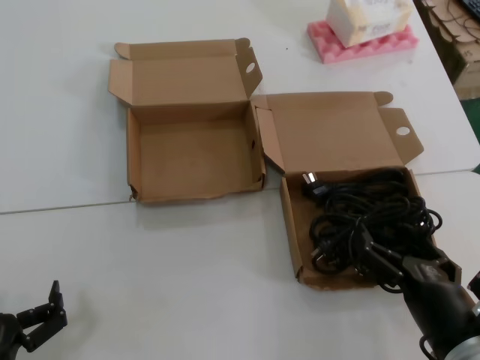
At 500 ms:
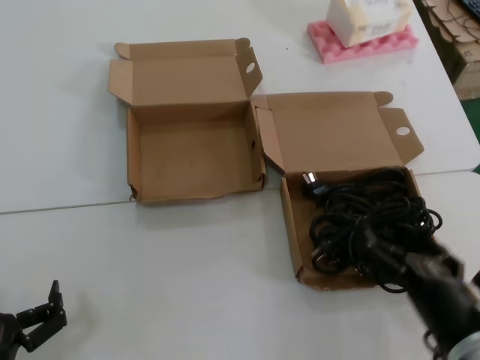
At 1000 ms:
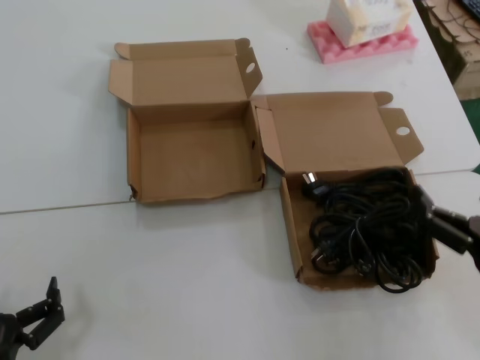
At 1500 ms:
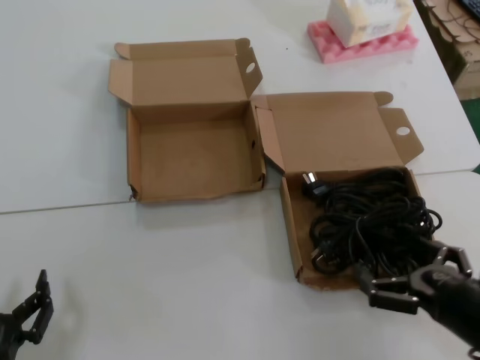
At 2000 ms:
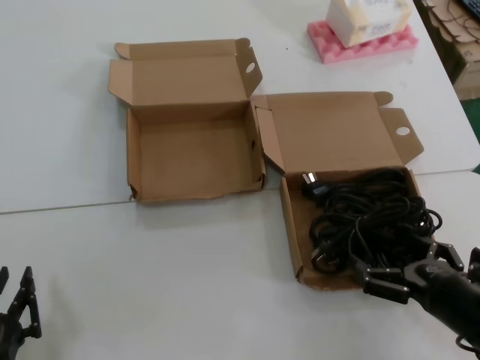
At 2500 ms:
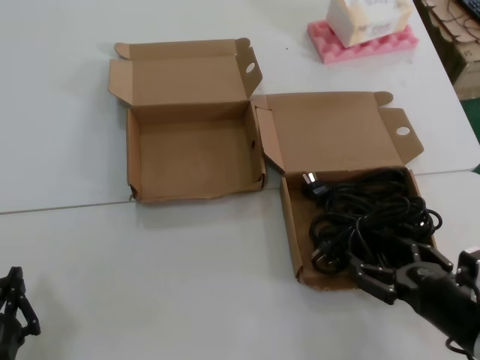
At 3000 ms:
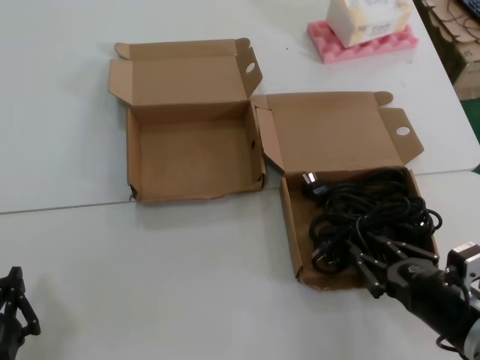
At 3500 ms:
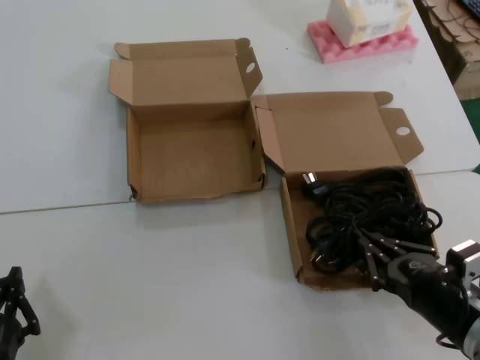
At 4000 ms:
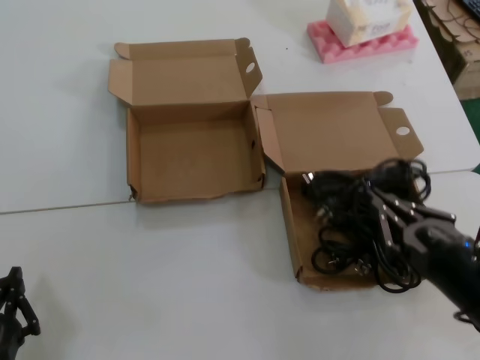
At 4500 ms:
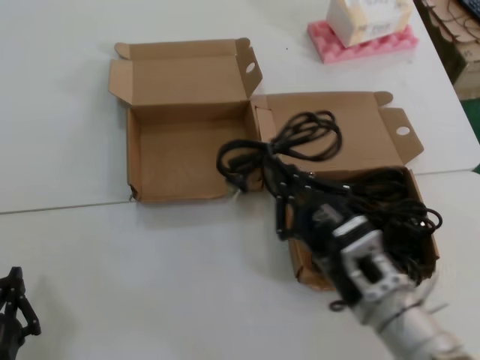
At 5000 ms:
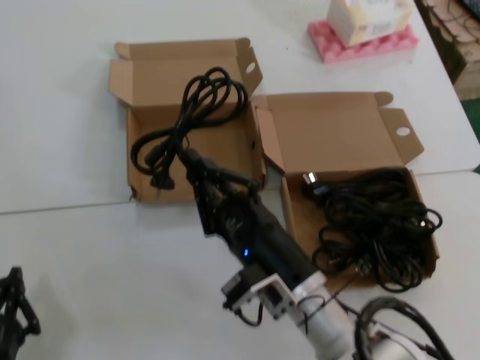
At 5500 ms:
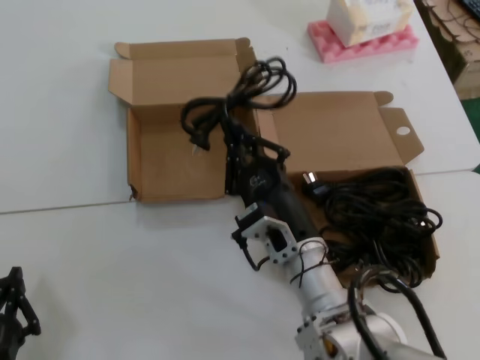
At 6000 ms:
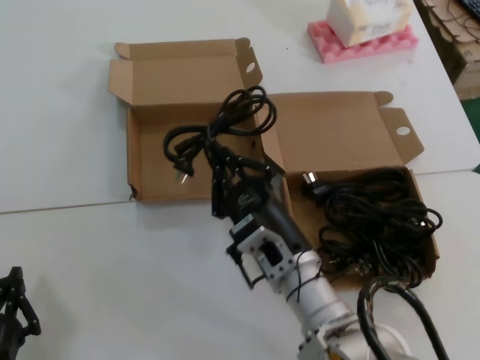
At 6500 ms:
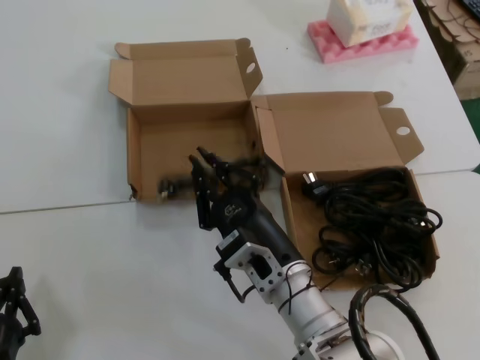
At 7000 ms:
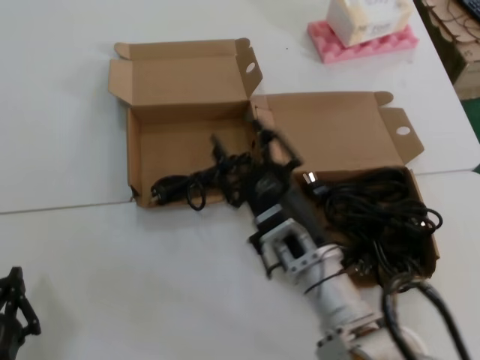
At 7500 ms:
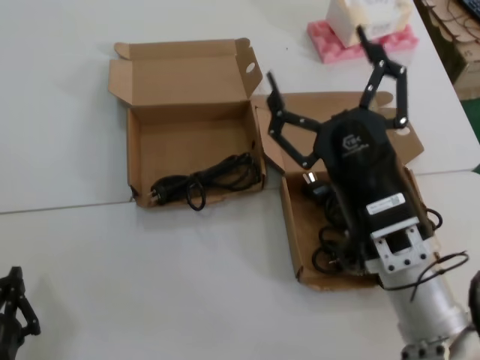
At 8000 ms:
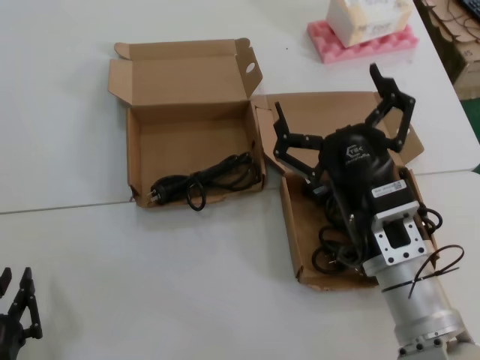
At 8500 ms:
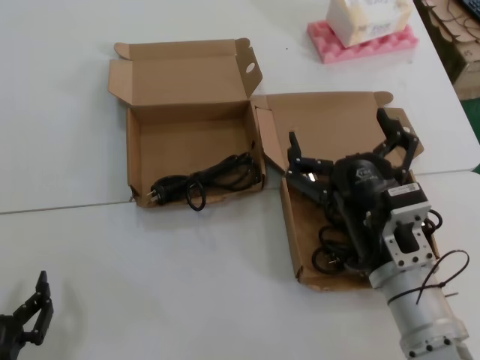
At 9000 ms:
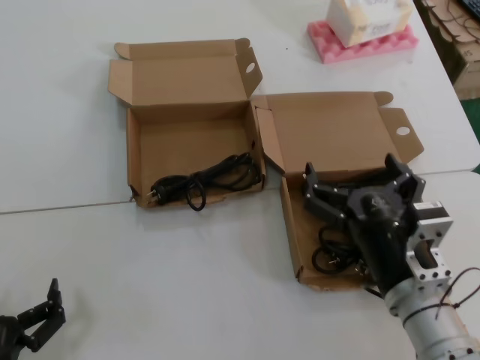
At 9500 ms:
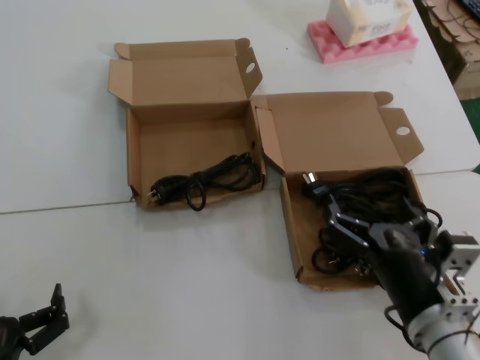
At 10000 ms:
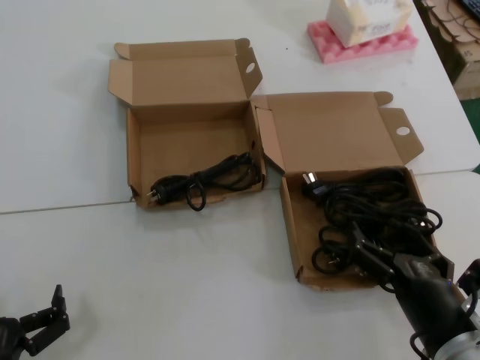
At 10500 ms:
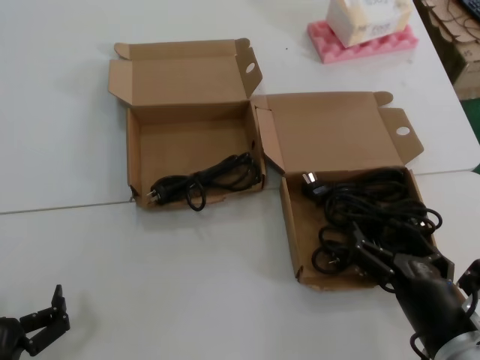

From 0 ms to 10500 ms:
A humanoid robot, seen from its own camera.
Task of the whole recording: Pick up the power cord from the box containing it and place it in another box.
Step, from 0 ms to 3500 ms: Grasp the data cable.
Step, from 4000 ms to 6500 ms: Place the data cable in the another box.
From 0 ms to 2000 ms: The right hand goes approximately 5 cm to the right.
From 2000 ms to 4000 ms: There are only small adjustments of the hands.
From 4000 ms to 6500 ms: The right hand goes about 25 cm to the left and forward.
From 6500 ms to 8500 ms: The right hand is displaced to the right, backward and upward by roughly 15 cm.
From 8500 ms to 10500 ms: The right hand goes some 10 cm to the right, downward and backward.
